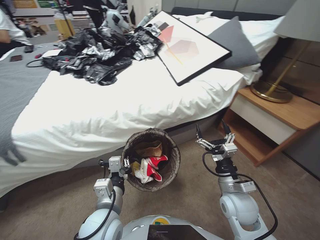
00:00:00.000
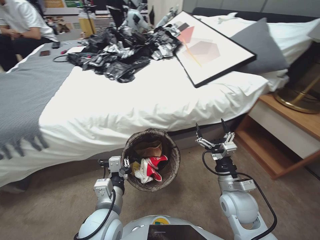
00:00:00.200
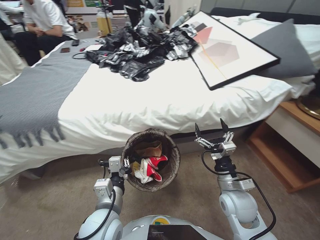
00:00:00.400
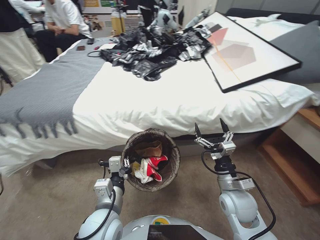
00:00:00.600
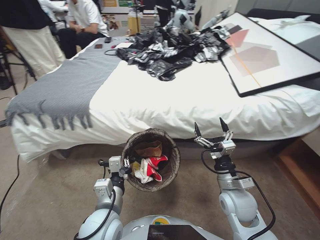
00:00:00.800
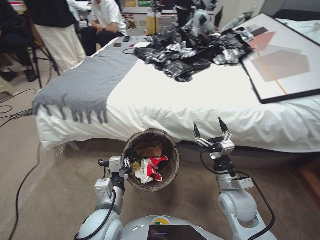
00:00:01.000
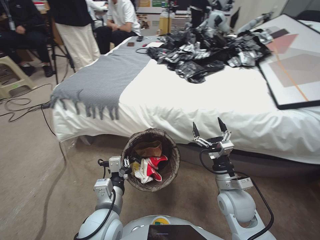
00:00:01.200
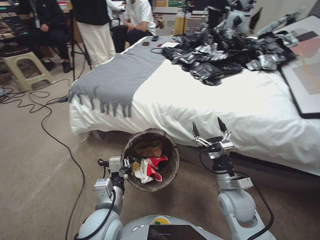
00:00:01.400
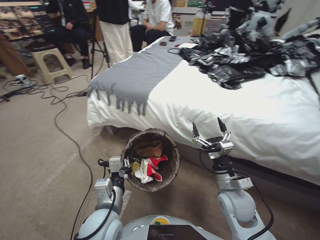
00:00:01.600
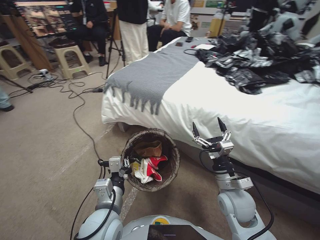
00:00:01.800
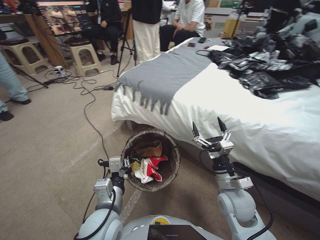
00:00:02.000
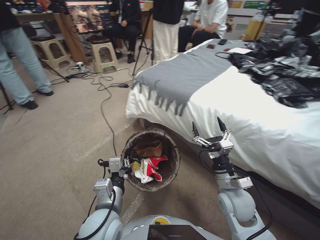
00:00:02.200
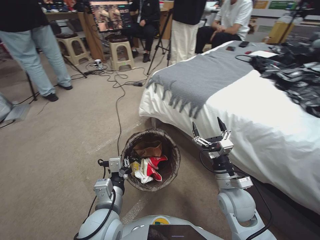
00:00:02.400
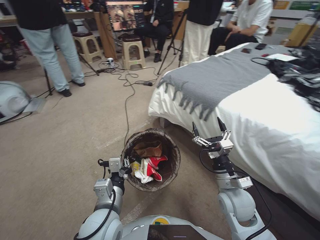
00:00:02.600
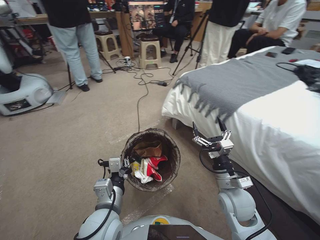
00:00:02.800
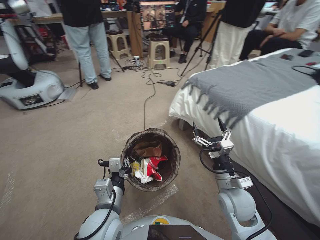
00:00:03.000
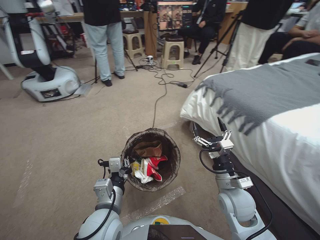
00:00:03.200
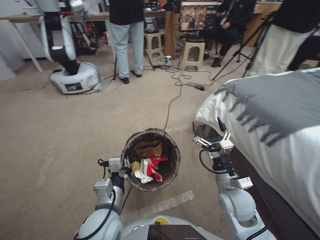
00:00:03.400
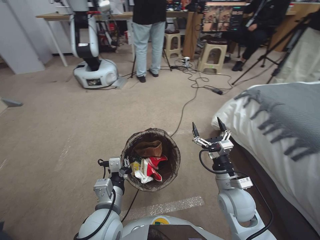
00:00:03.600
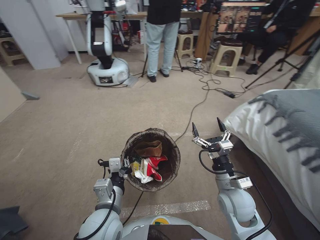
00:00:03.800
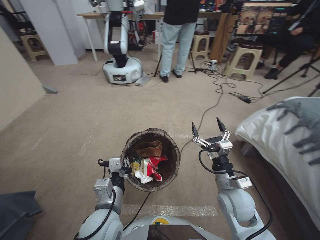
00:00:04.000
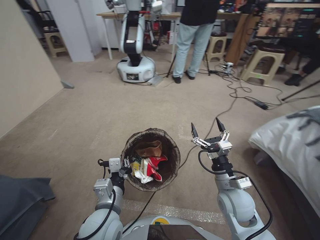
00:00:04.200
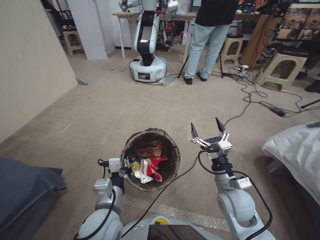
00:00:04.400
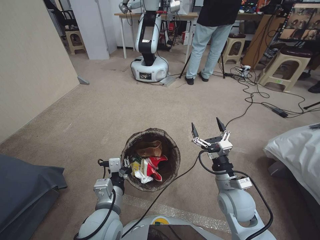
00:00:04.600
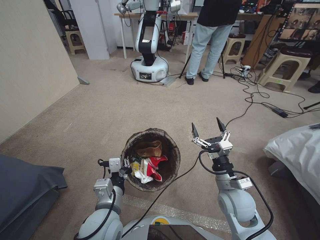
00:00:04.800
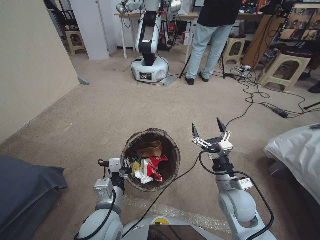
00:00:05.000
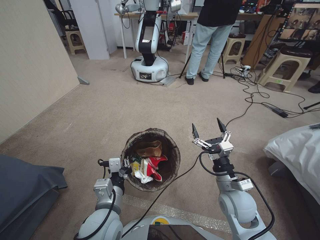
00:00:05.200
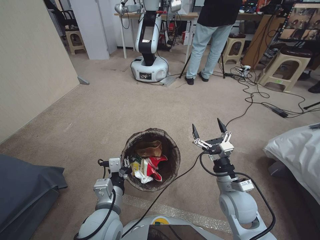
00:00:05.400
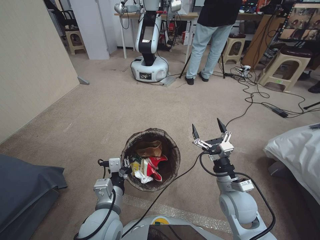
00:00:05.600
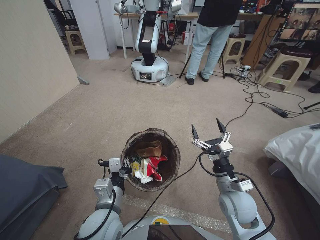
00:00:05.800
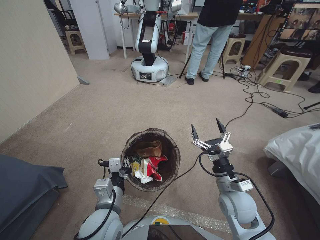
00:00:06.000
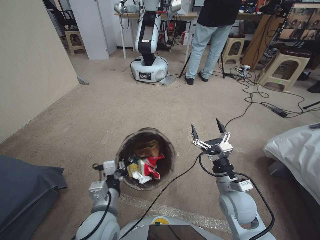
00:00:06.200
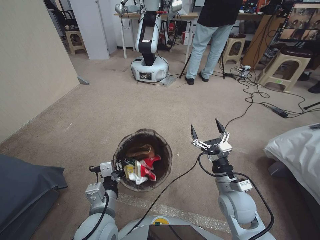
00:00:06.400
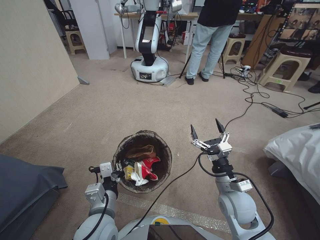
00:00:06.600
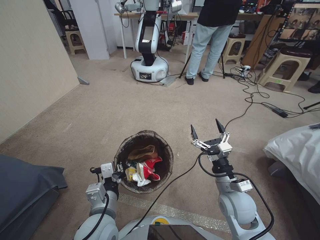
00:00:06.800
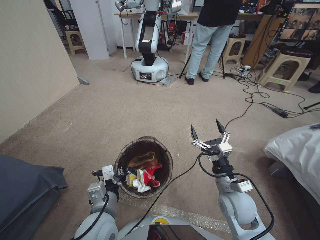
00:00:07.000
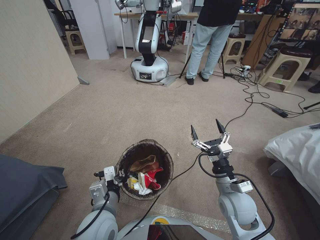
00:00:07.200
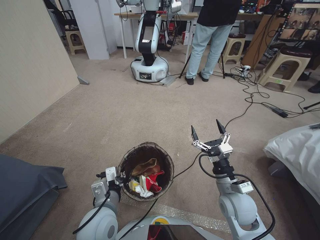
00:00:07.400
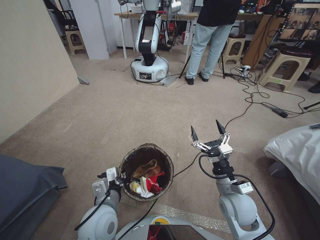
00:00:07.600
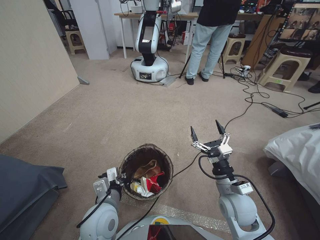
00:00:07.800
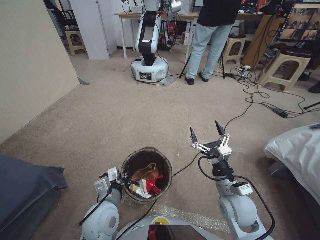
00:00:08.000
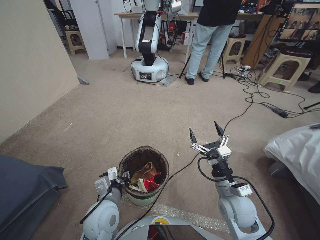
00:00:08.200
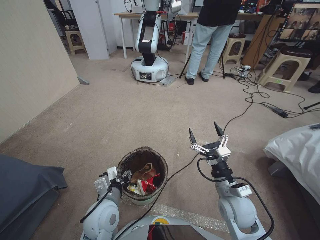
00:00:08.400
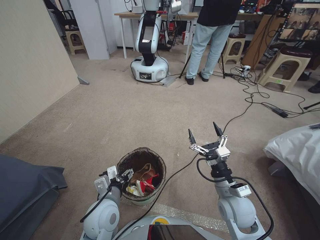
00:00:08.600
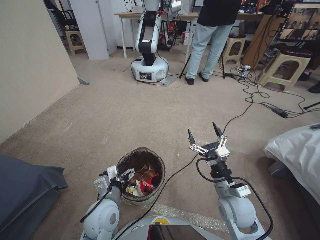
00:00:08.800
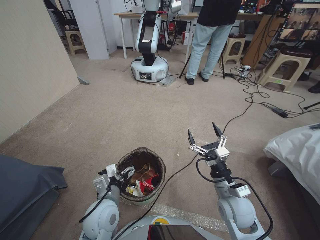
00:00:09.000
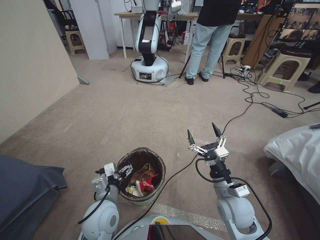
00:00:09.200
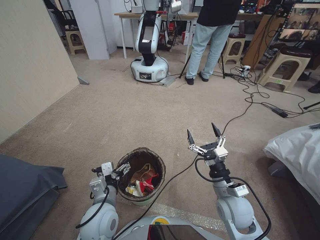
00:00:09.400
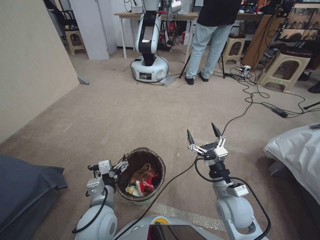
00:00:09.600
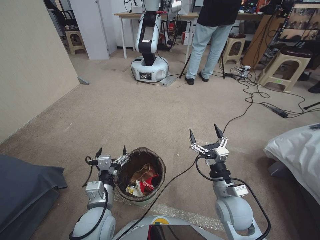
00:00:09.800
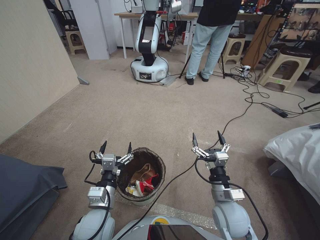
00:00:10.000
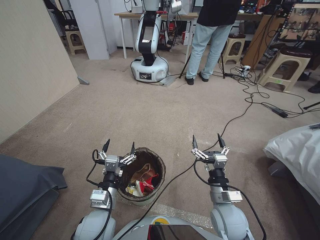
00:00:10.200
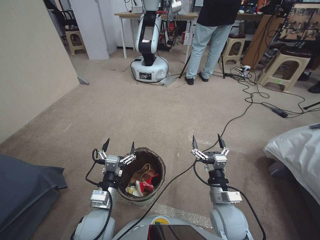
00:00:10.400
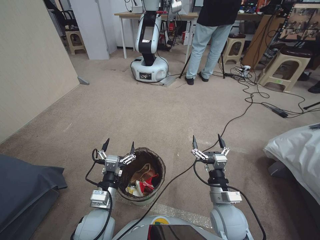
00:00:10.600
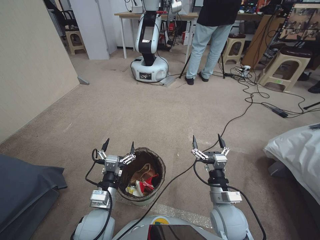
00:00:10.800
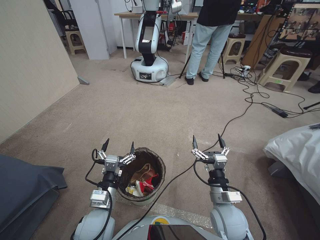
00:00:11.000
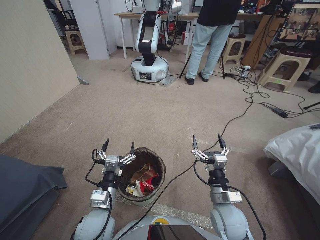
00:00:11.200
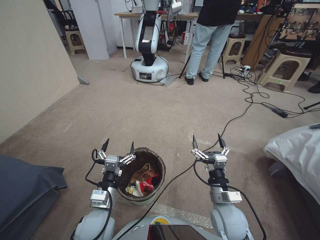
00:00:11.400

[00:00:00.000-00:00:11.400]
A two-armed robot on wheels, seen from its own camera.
Task of the whole recording: Pick up the trash bin, then pick up the garbage from the floor and place it into the trash bin.
00:00:05.600 to 00:00:07.200: The grippers make only small movements.
00:00:07.200 to 00:00:08.600: The left gripper moves approximately 5 cm, and opens up.
00:00:10.000 to 00:00:11.400: The grippers stay close to where they were, moving slightly.
